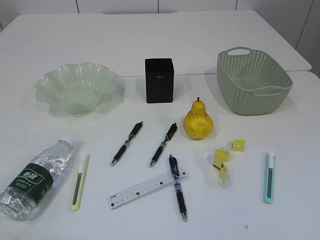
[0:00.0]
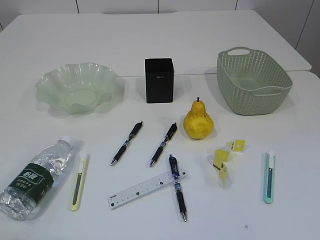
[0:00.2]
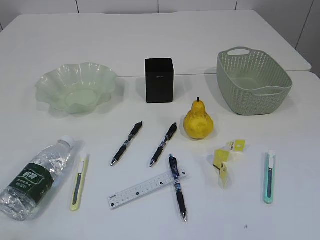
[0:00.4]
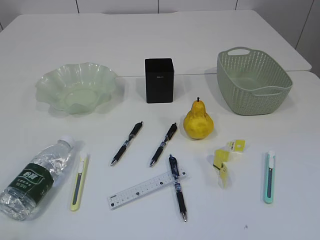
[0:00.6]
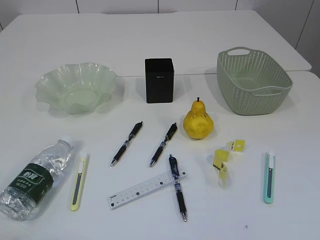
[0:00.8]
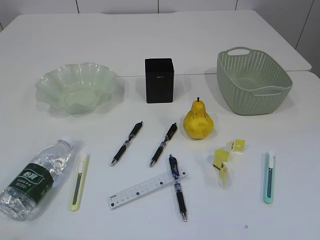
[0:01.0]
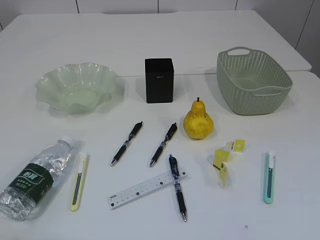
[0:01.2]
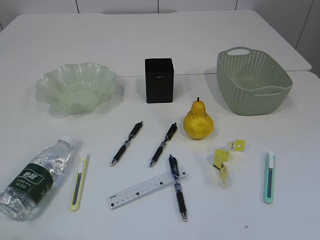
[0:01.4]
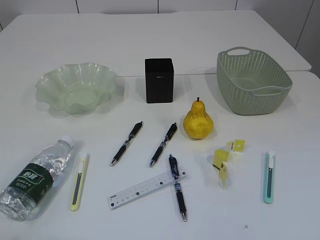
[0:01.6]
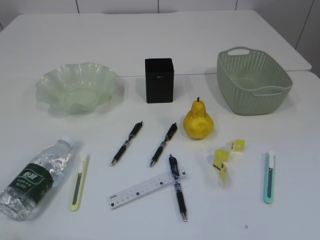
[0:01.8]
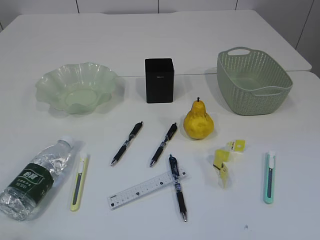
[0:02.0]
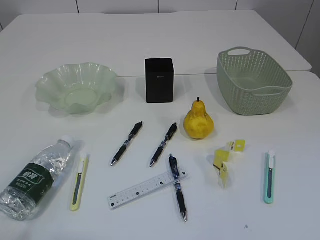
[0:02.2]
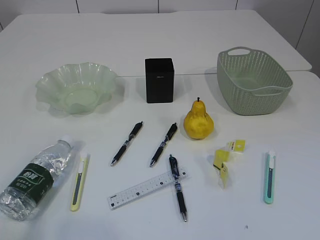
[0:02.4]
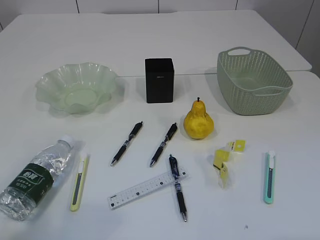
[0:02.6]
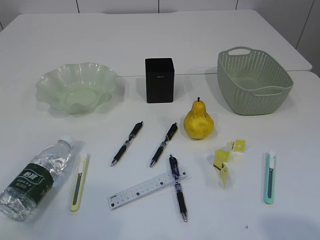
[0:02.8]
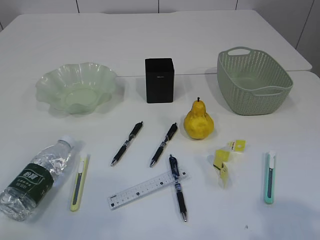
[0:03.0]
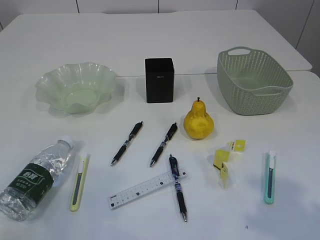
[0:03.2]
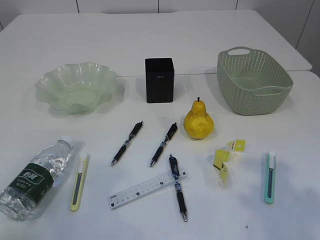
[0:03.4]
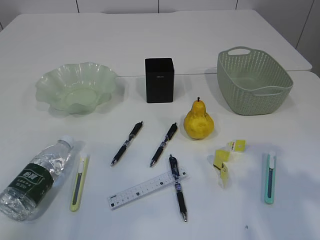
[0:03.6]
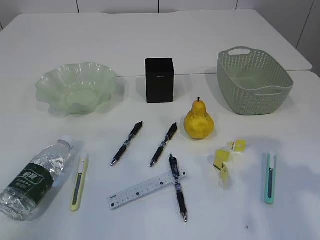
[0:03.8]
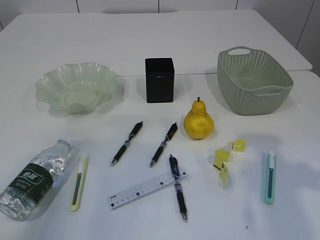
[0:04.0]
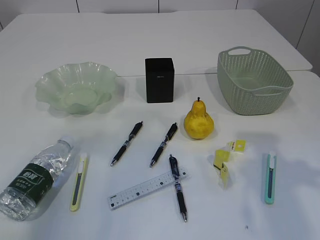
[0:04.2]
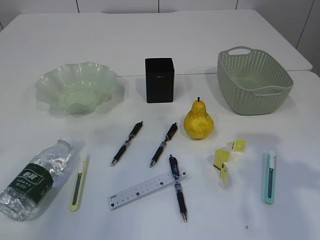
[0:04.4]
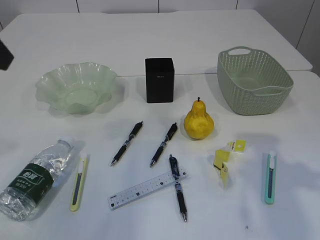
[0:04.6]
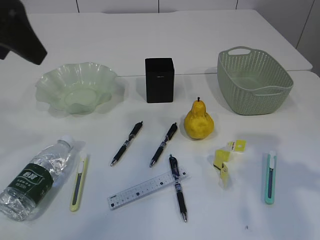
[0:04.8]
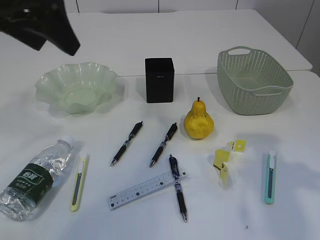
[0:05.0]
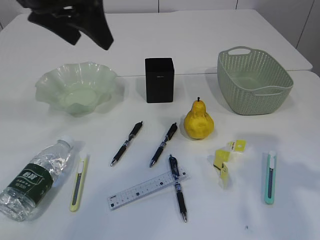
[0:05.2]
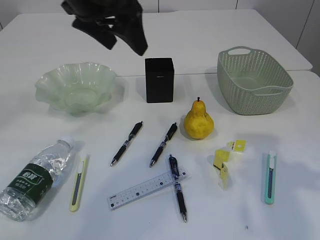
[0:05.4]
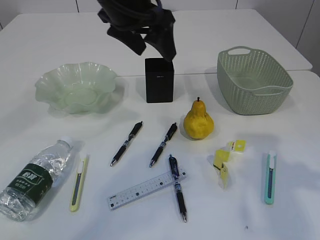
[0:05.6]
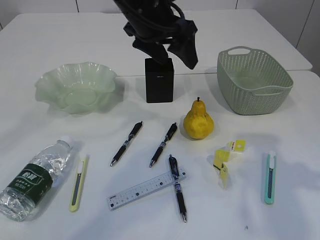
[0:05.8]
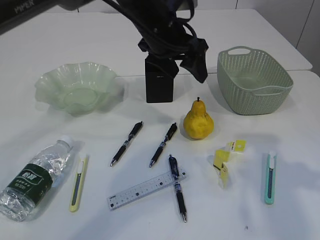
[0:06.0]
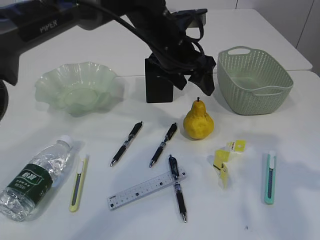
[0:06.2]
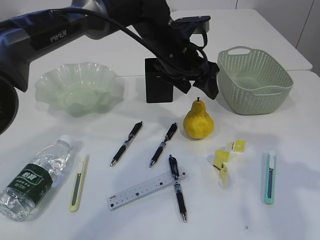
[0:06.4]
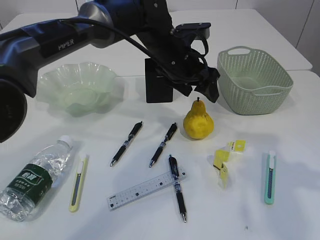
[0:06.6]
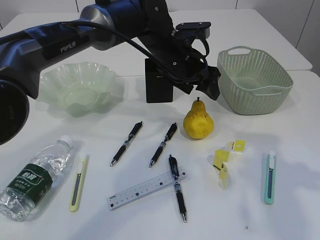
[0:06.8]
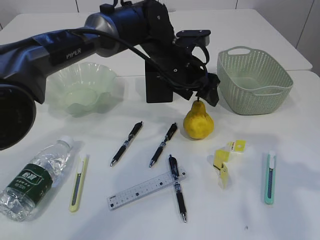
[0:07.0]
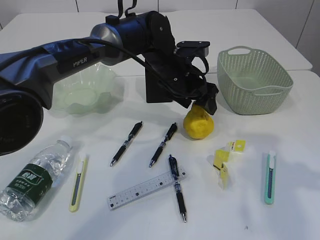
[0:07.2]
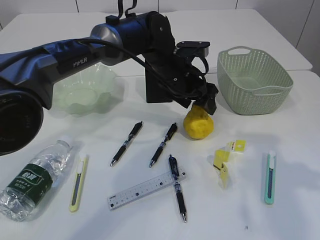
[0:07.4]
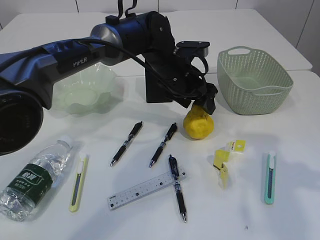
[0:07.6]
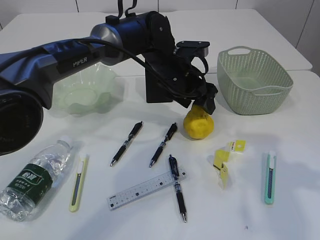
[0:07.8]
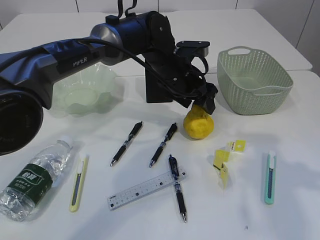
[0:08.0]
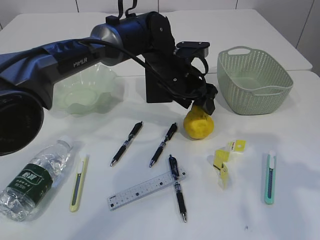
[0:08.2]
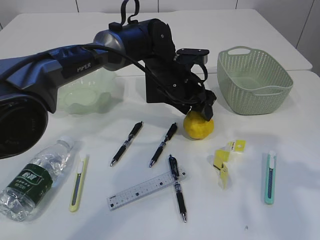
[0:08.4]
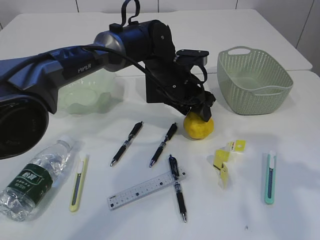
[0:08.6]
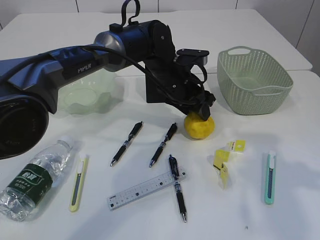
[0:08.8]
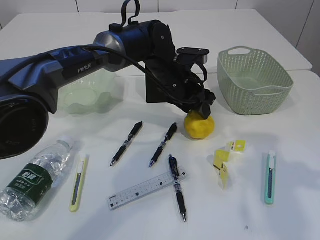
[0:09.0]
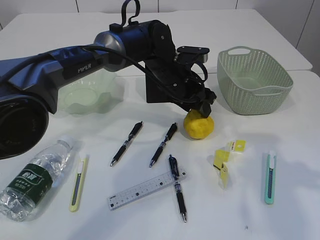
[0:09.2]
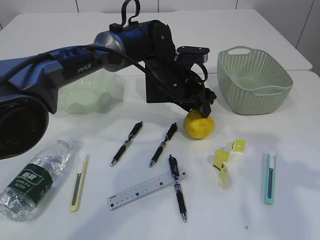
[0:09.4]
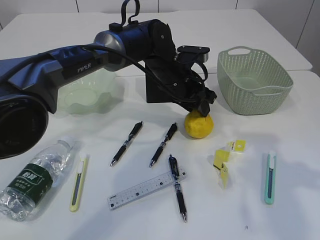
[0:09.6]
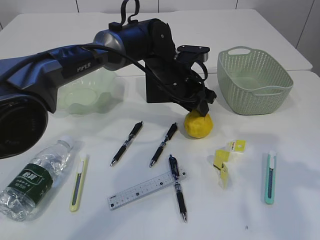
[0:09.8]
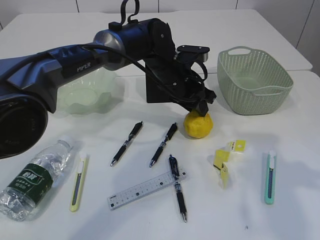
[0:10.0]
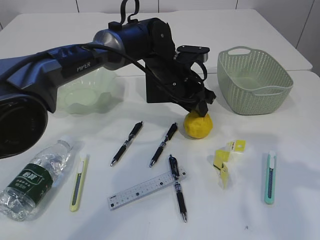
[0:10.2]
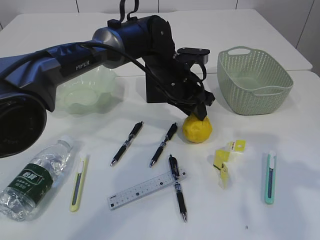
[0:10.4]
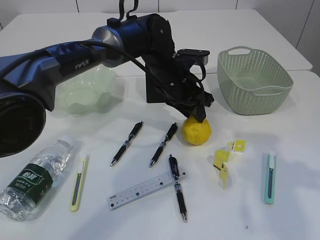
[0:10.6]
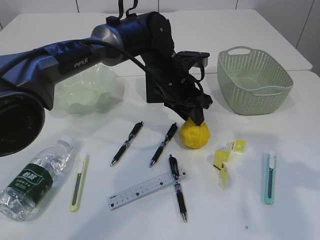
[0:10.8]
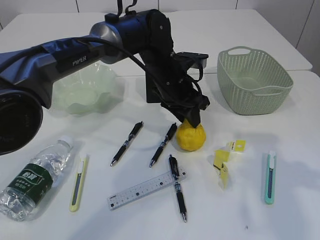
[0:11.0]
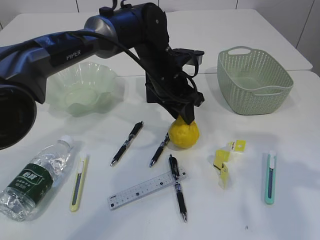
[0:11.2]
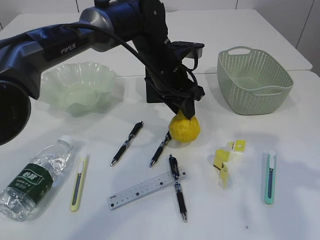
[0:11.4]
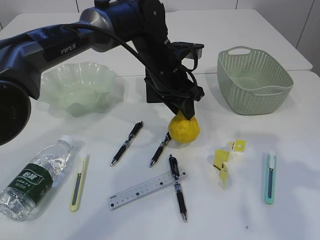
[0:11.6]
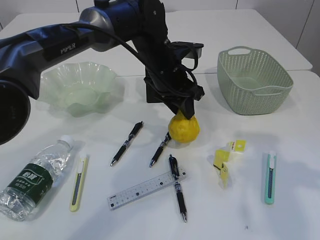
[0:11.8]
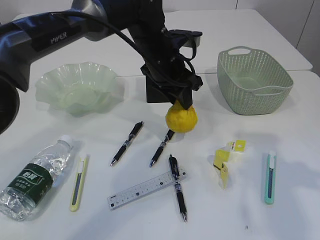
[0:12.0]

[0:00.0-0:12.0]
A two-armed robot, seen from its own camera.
0:01.6 to 0:03.0: The left gripper heads forward and upward, covering some 10 cm.
0:04.4 to 0:06.0: The left gripper moves to the right, forward and downward, roughly 35 cm.
0:06.0 to 0:07.6: The left gripper travels downward by approximately 10 cm.
0:07.6 to 0:09.0: The grippers make only small movements.
0:09.0 to 0:10.4: Both grippers stay about where they are.
0:10.4 to 0:12.0: The left gripper moves upward, some 5 cm.

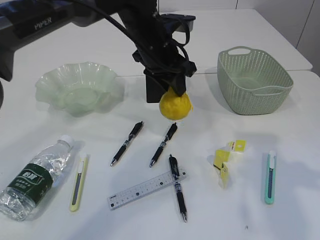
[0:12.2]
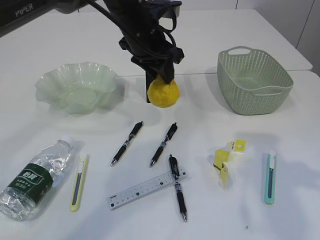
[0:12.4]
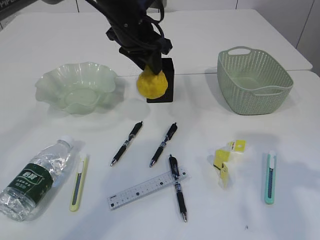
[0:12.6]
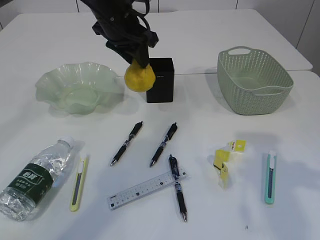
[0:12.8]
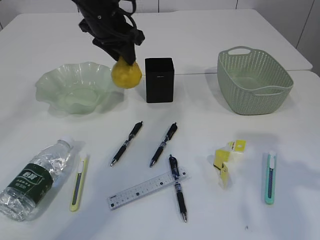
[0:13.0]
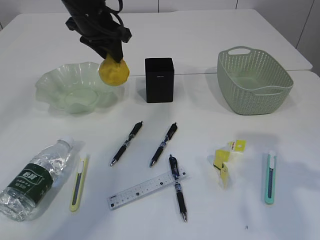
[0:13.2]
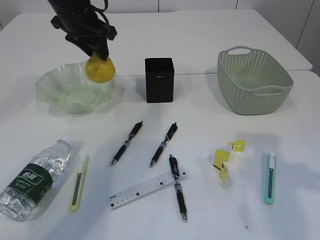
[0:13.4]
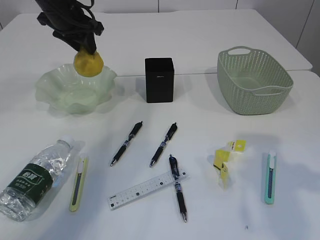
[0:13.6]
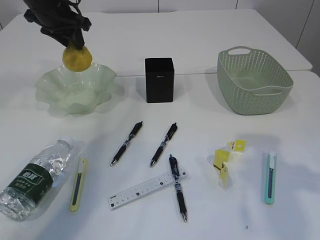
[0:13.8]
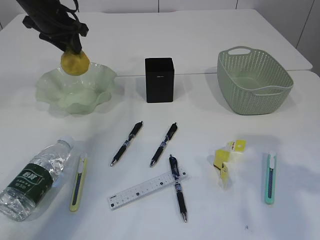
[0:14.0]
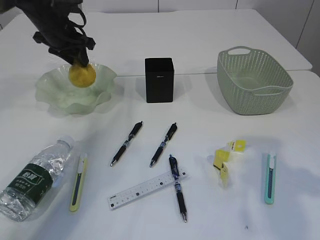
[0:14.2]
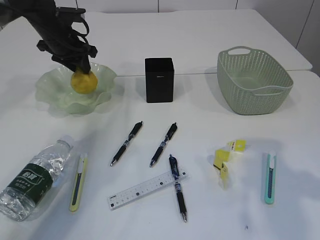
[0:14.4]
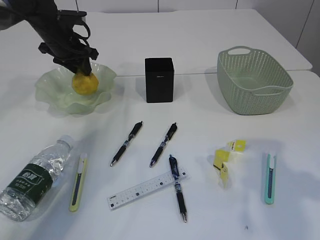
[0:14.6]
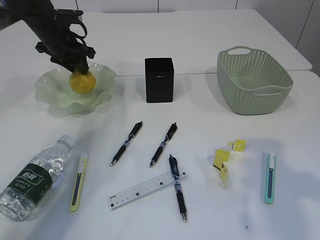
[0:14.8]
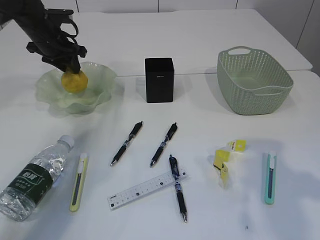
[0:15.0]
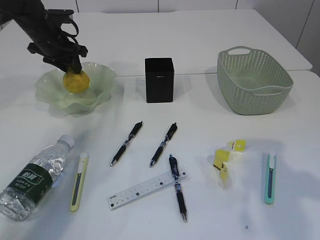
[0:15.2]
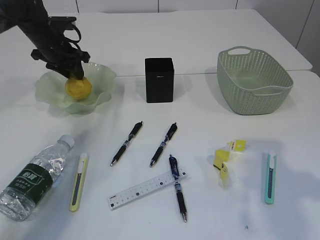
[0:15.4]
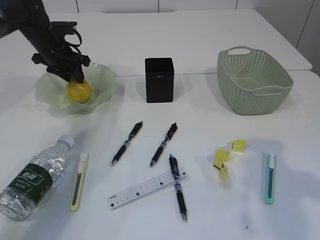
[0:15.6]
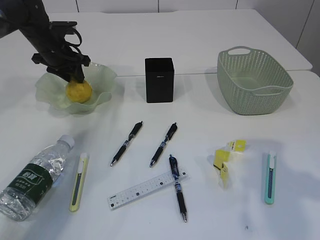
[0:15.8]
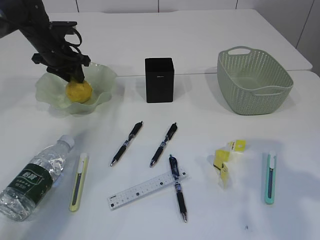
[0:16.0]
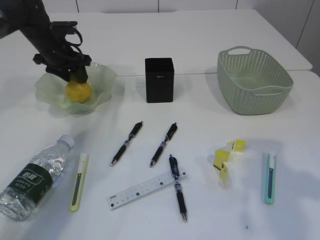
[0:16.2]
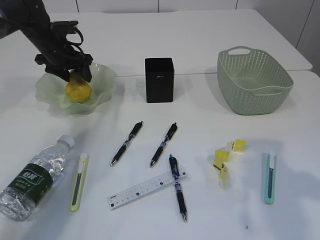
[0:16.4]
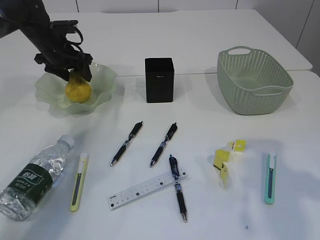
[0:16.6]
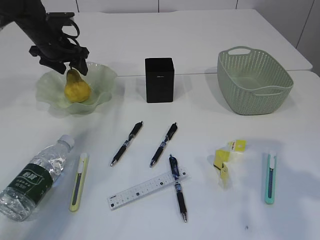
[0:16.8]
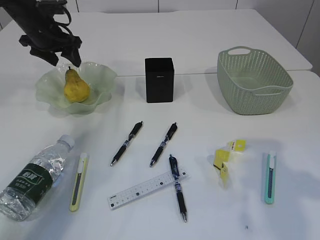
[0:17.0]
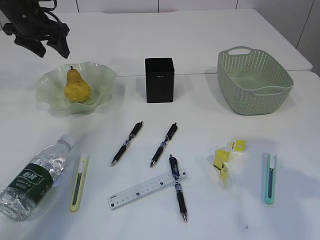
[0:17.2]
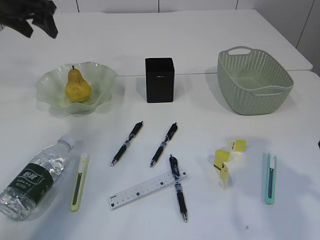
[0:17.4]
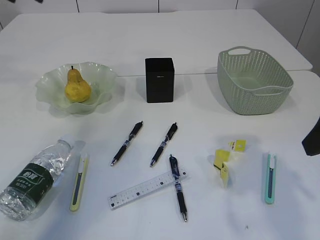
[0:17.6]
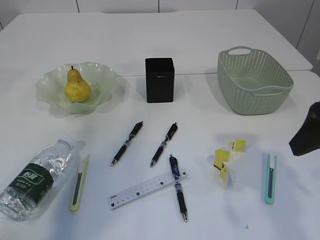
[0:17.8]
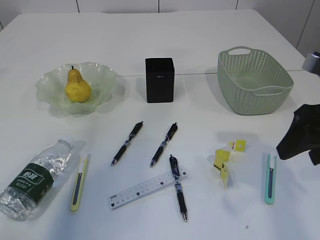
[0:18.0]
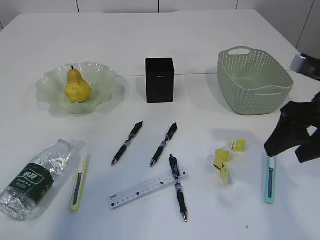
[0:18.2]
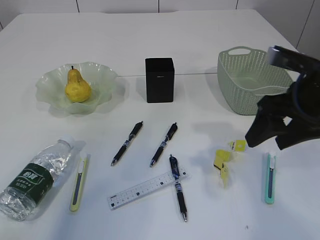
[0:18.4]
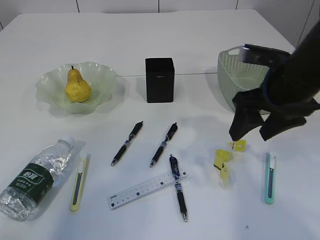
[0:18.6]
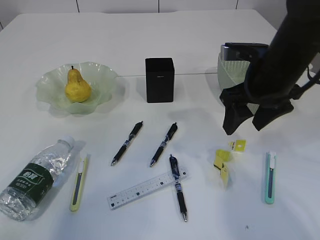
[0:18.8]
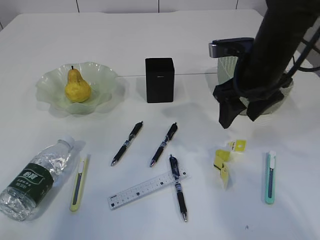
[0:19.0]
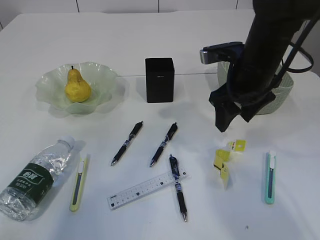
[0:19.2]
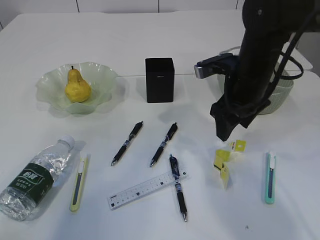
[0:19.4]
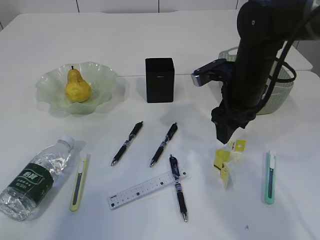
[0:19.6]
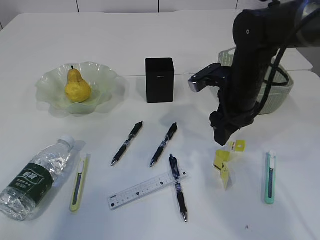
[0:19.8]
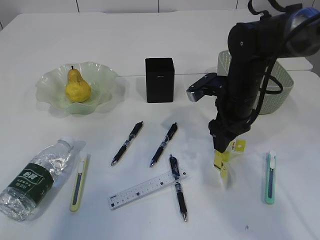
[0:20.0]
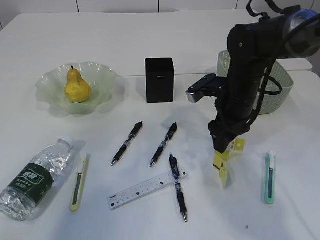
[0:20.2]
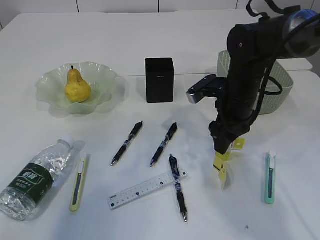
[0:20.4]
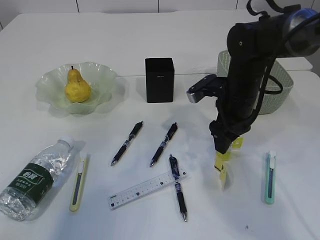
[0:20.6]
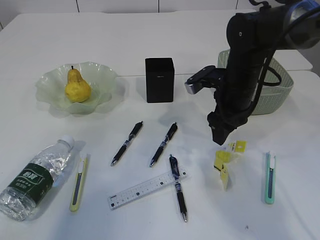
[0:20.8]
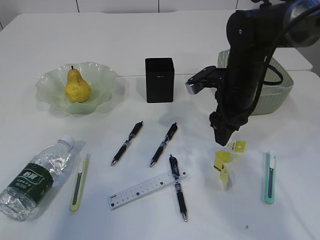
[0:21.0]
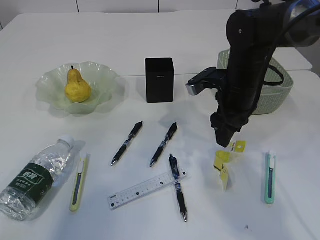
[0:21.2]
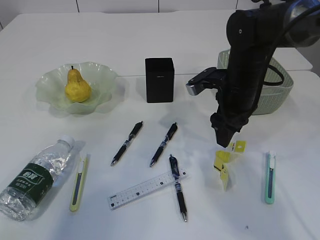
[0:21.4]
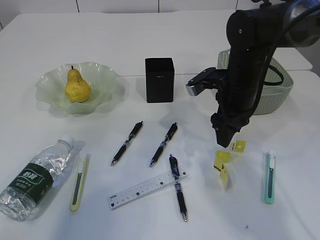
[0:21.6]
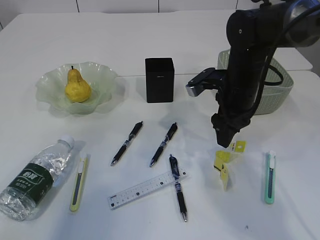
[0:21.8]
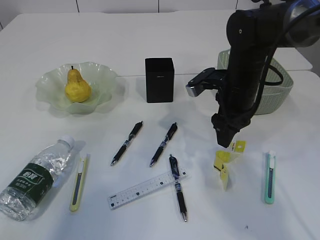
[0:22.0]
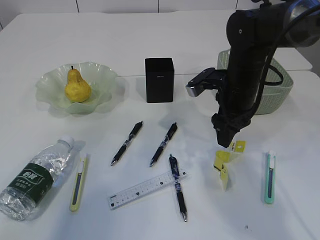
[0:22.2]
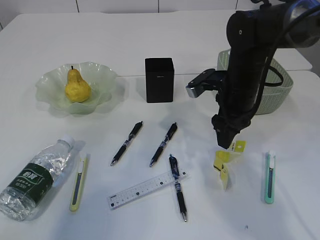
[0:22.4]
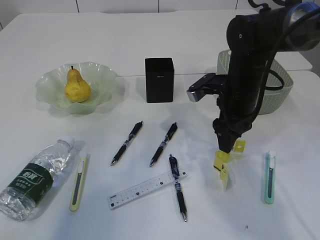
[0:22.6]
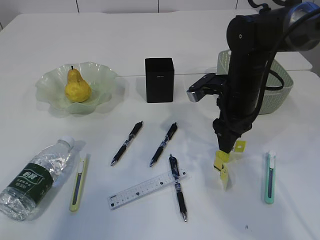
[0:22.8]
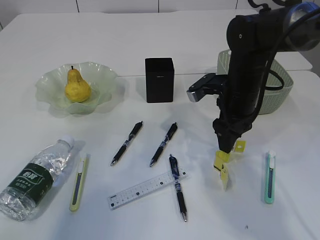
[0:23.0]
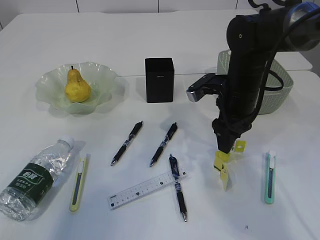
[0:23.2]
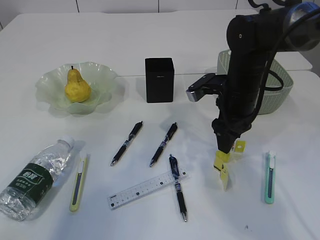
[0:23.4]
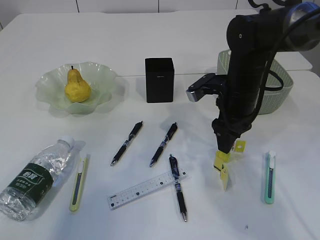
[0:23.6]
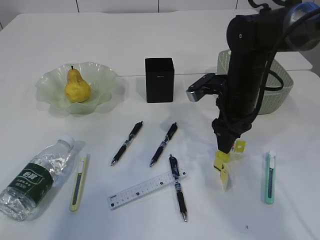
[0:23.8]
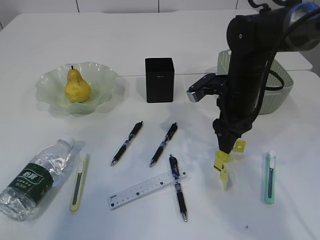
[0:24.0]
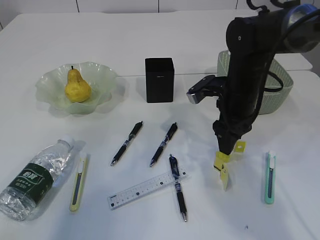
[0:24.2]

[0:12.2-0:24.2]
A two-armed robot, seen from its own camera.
Step, 0:12.4 to 0:17.2: Place the pear in the plate.
0:12.2 to 0:13.8: The left gripper heads to the left, covering about 20 cm.
0:13.8 to 0:15.2: The left gripper travels downward by about 10 cm.
0:15.2 to 0:16.6: The left gripper opens up.
0:16.6 to 0:18.2: The left gripper shifts about 40 cm upward and backward; the right gripper goes roughly 5 cm forward.
0:18.2 to 0:19.8: The right gripper is displaced forward, to the left and downward by about 15 cm.
0:19.8 to 0:21.2: The grippers stay close to where they were, moving slightly.
0:21.2 to 0:24.2: Both grippers stay put.
